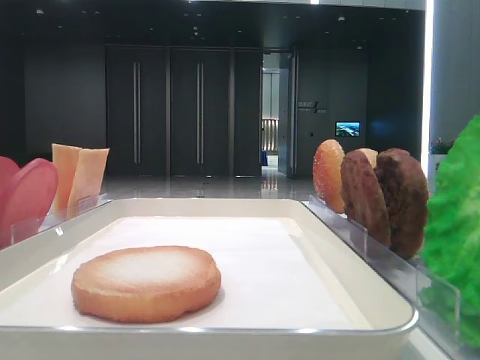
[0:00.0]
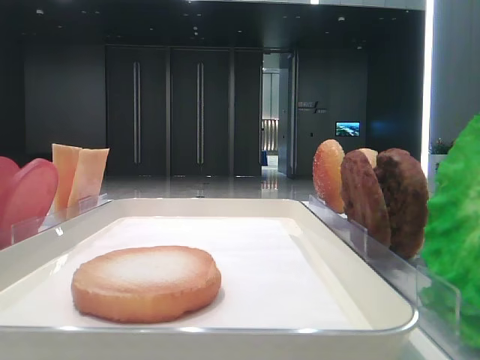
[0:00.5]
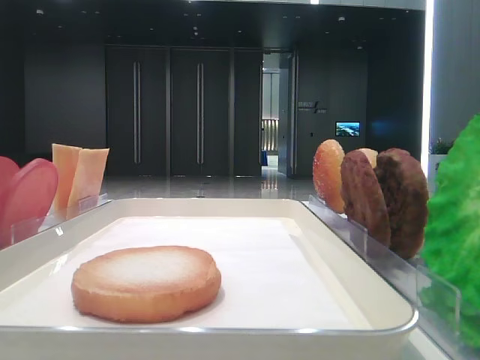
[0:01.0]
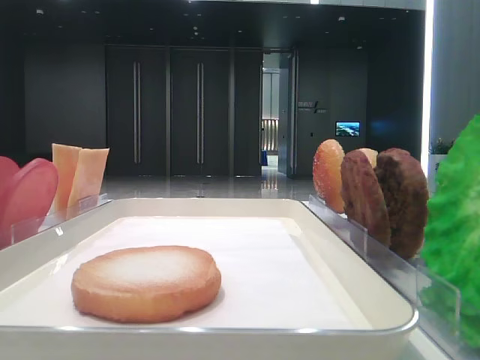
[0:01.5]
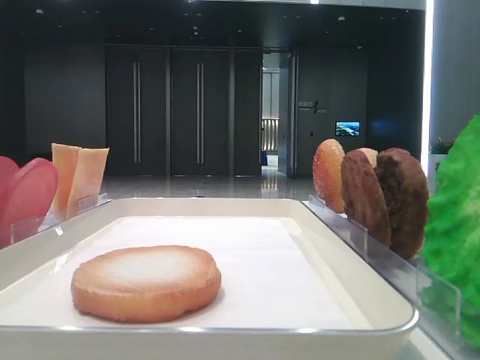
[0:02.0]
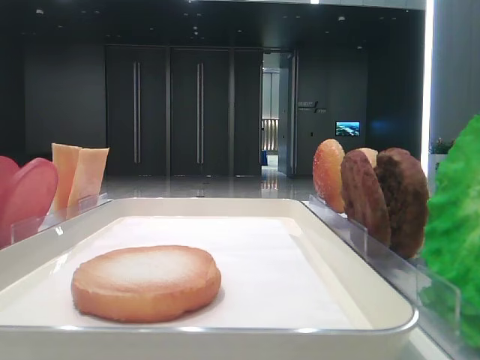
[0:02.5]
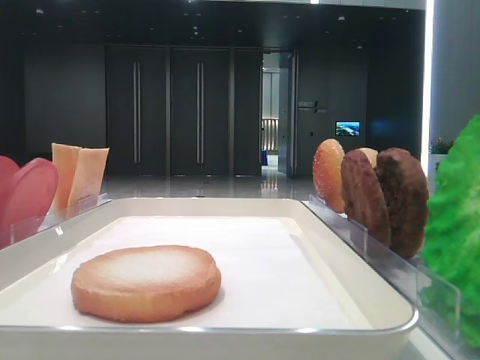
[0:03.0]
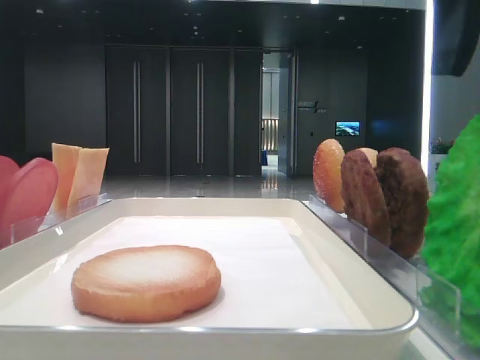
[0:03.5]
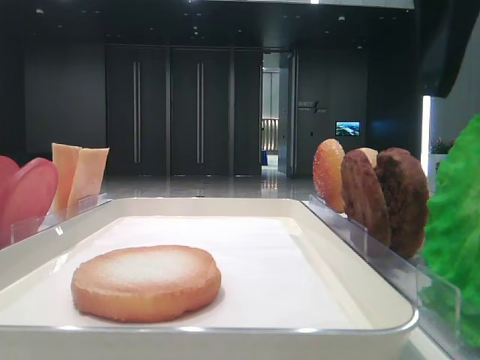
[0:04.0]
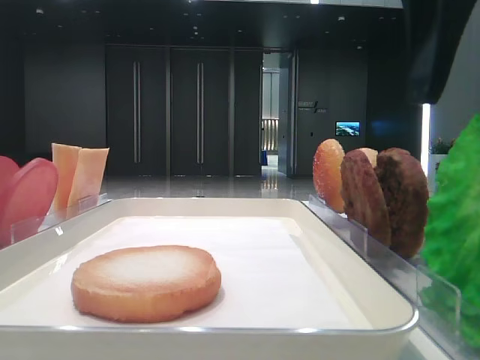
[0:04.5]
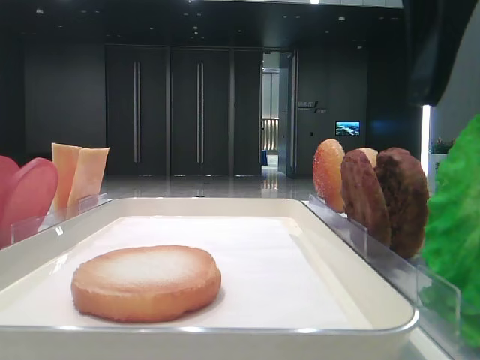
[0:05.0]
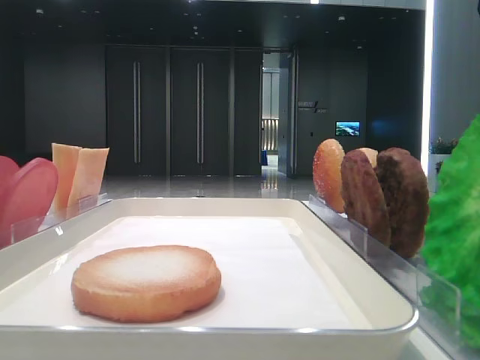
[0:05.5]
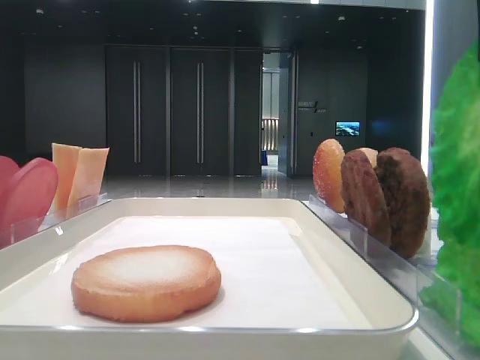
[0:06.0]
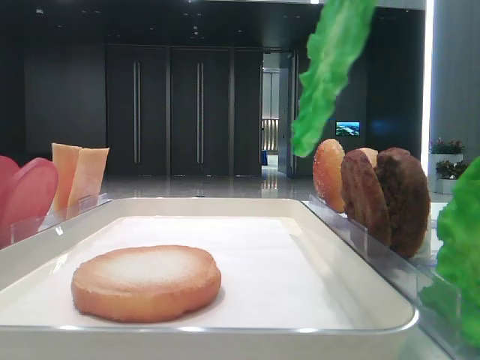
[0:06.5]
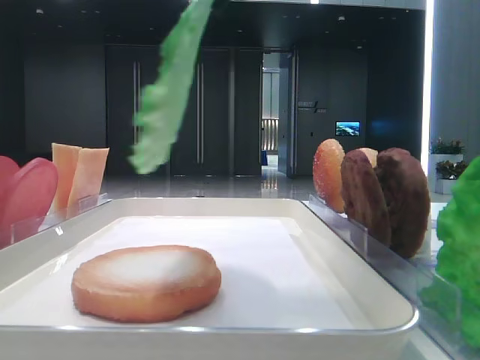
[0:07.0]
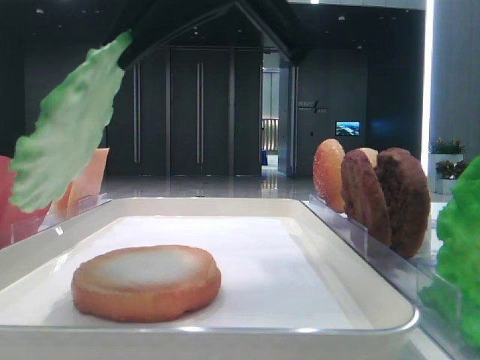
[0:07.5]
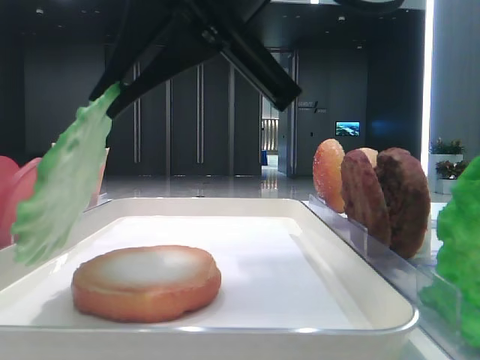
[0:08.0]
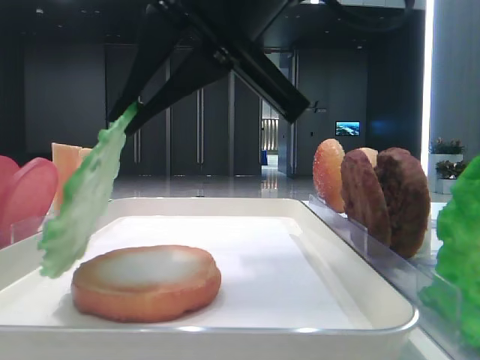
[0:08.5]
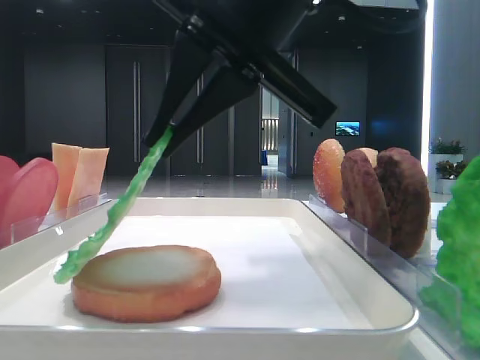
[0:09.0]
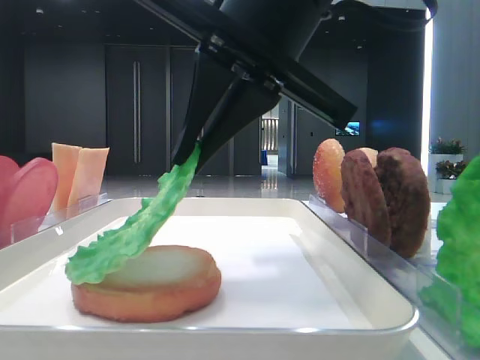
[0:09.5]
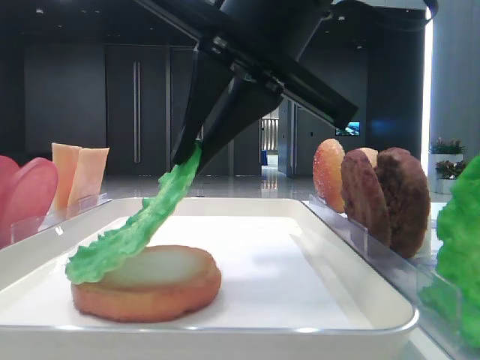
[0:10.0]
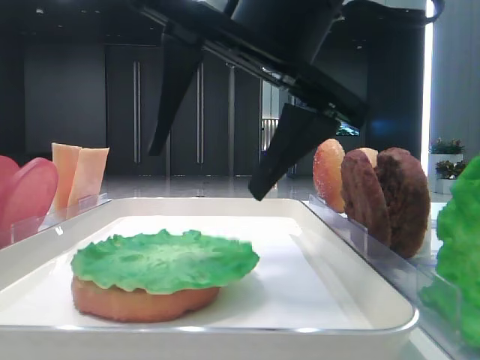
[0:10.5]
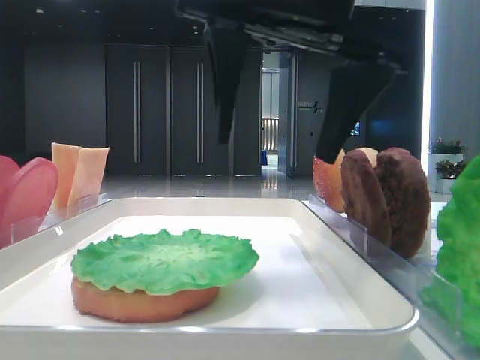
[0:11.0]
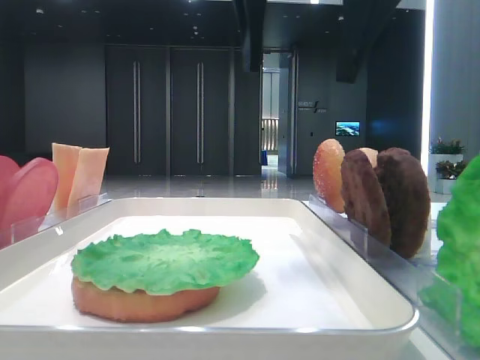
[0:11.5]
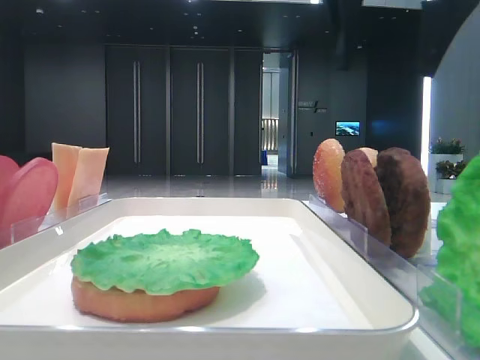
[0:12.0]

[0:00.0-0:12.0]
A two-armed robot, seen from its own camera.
Step, 0:00.0 to 0:05.0: Grab the lettuce leaf with the right hand.
Step, 0:06.0 to 0:10.5: Place the lettuce leaf on the bottom bread with the right hand.
0:02.0 to 0:04.0: The right gripper heads to the left and downward, covering about 10 cm.
0:04.0 to 0:06.0: The right gripper closes its fingers.
0:06.0 to 0:08.0: The right gripper shifts approximately 15 cm to the left.
0:08.0 to 0:10.0: The grippers make only small movements.
0:10.0 to 0:12.0: The right gripper shifts about 15 cm to the right, upward and forward, and opens its fingers.

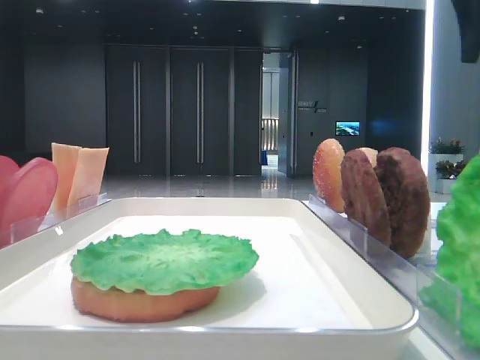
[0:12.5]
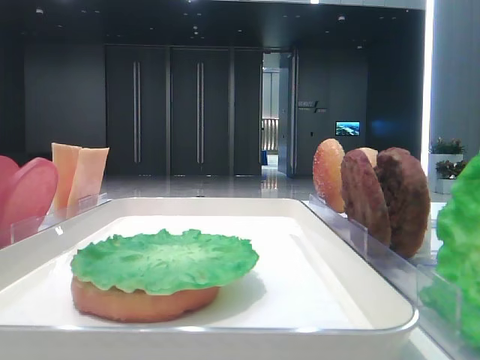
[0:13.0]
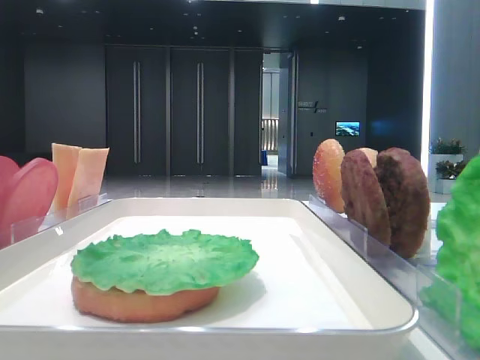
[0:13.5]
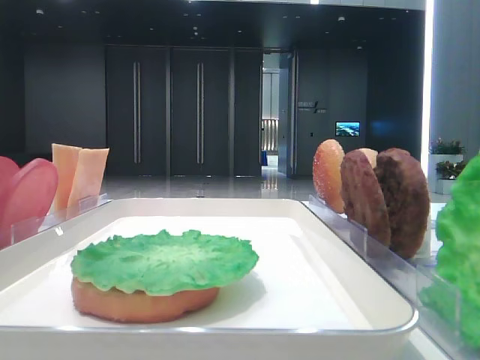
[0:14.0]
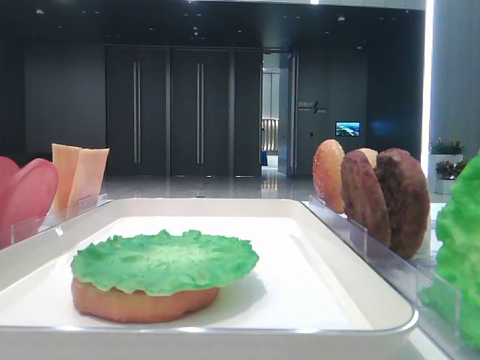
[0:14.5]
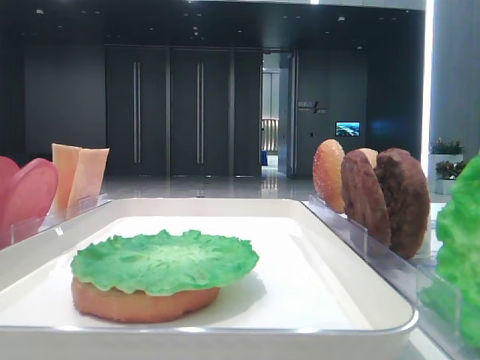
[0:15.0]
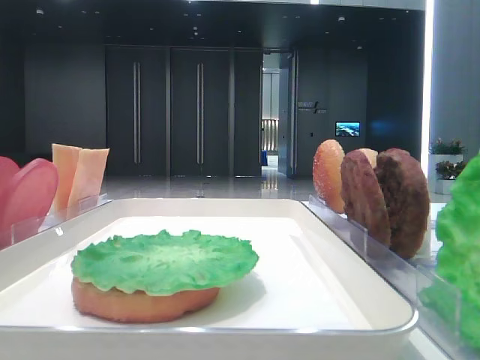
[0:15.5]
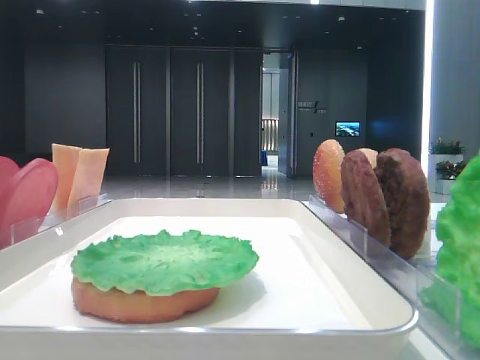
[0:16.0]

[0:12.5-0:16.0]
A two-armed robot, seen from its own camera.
0:12.5 to 0:14.5: The right gripper travels backward by about 35 cm.

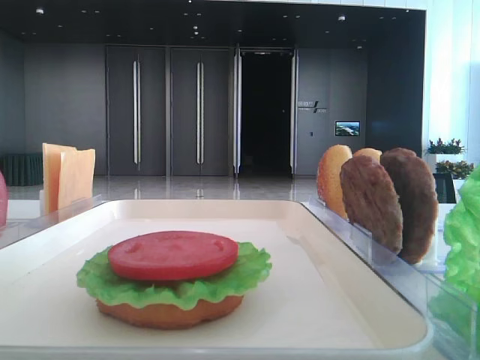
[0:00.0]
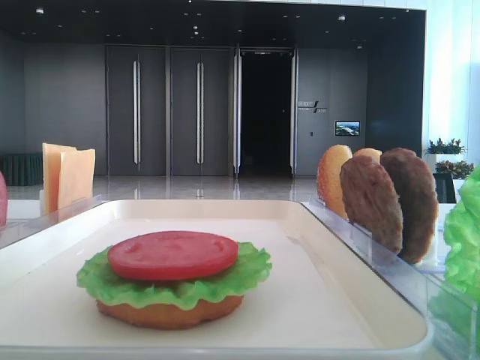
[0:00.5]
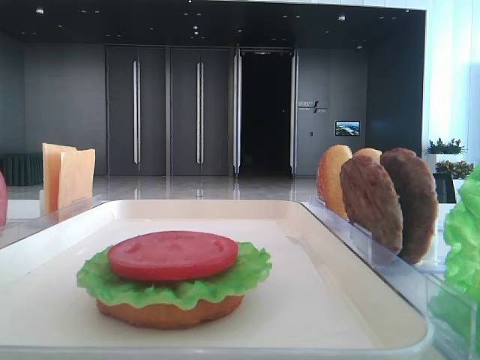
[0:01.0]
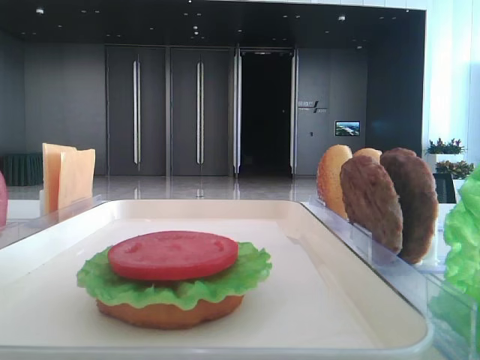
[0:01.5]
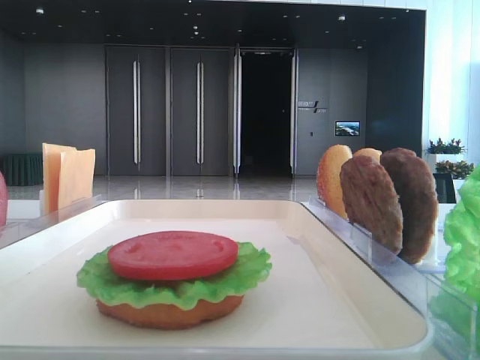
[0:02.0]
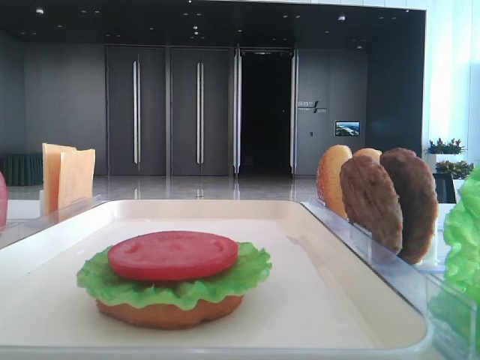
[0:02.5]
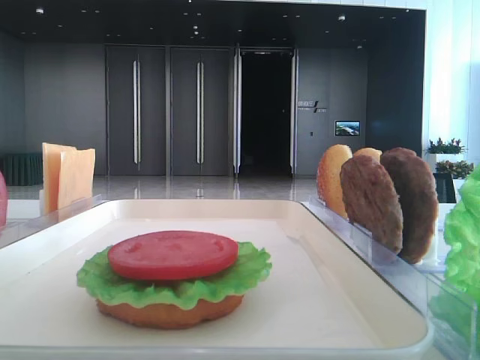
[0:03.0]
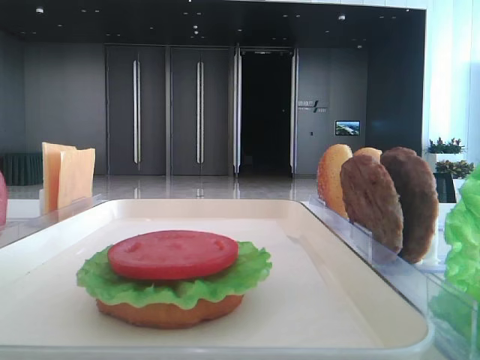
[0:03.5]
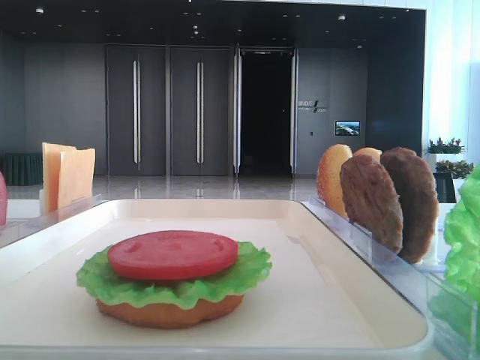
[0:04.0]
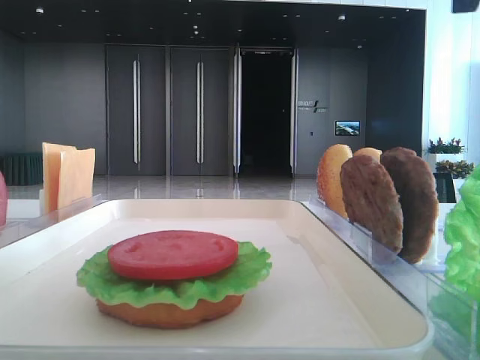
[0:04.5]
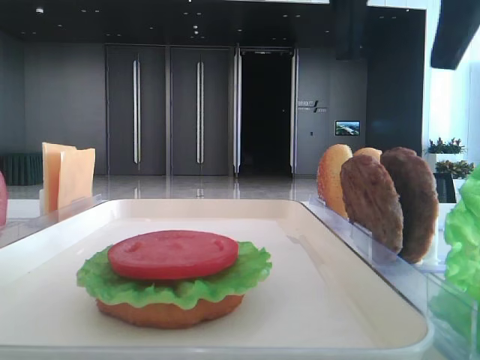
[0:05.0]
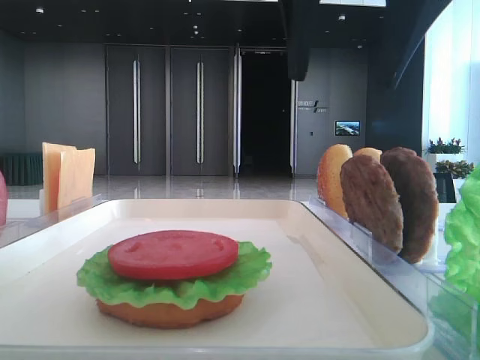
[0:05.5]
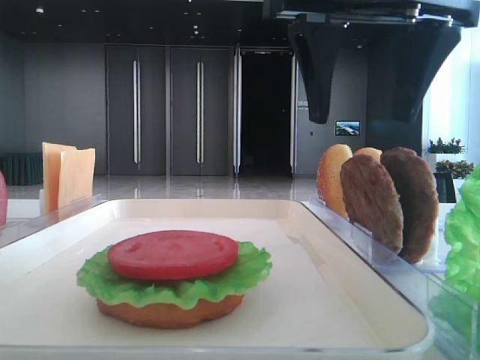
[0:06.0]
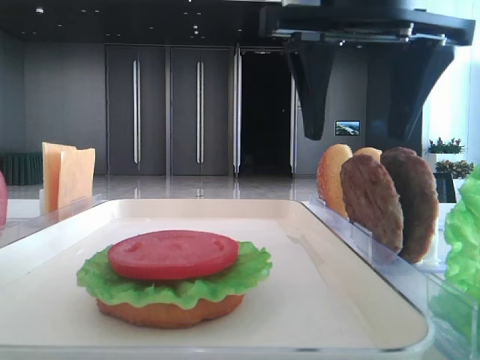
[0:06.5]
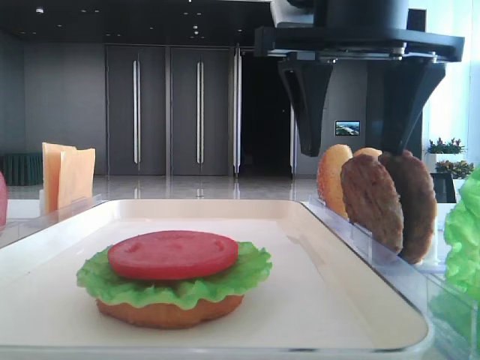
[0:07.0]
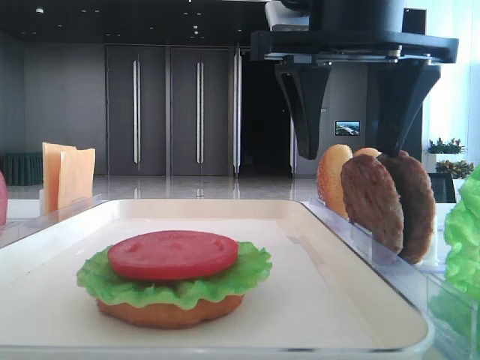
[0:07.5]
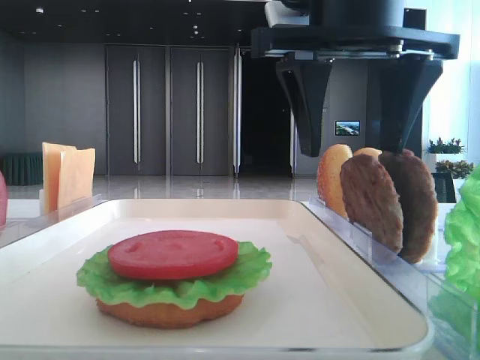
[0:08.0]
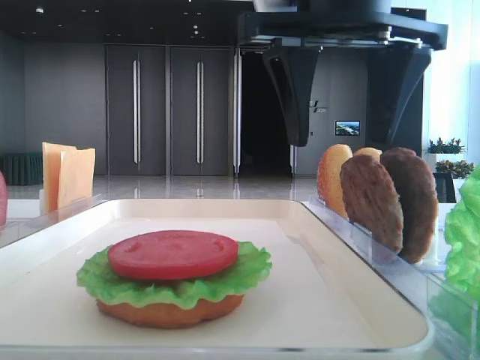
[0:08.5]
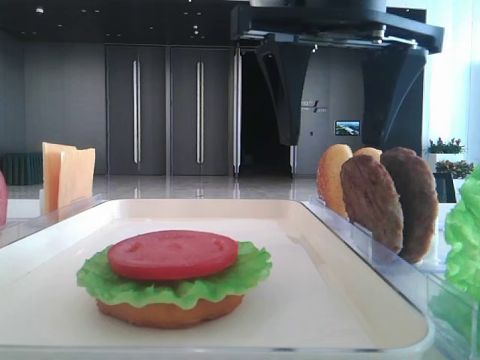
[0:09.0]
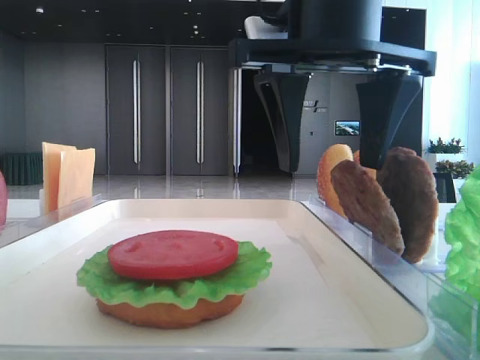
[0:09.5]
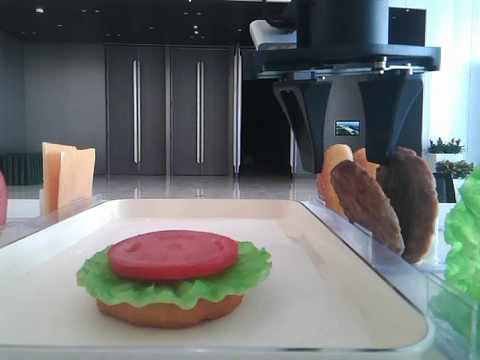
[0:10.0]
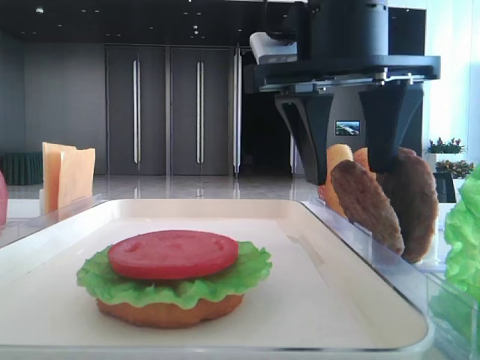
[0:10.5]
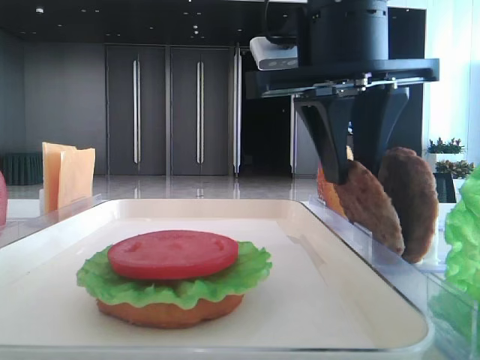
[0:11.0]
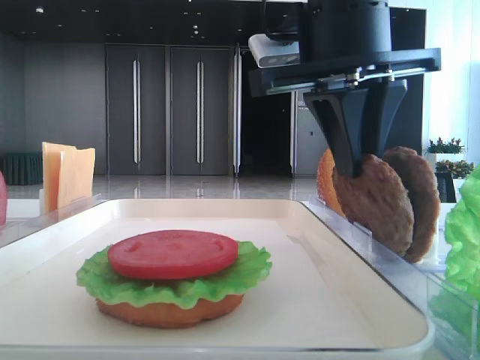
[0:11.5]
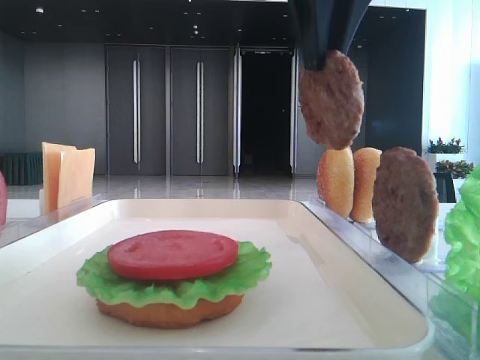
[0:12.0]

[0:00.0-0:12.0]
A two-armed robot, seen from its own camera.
Step, 0:00.0 to 0:11.0: Grab the patty with the right hand.
0:04.0 to 0:06.0: The right gripper is displaced to the left and downward by roughly 20 cm.
0:06.0 to 0:10.0: There are only small adjustments of the grippers.
0:10.0 to 0:12.0: The right gripper shifts about 10 cm upward, and closes.
